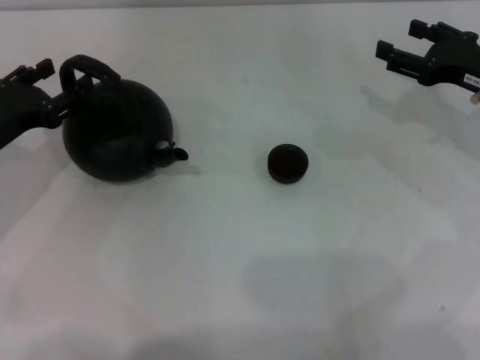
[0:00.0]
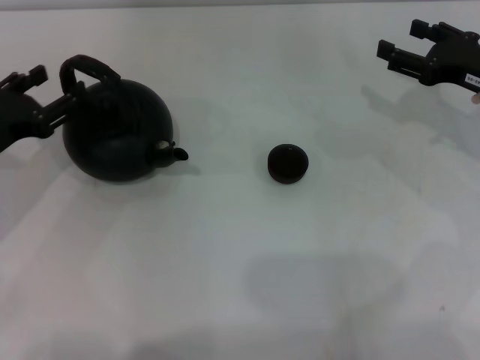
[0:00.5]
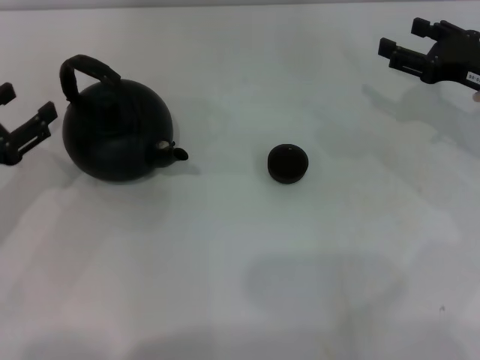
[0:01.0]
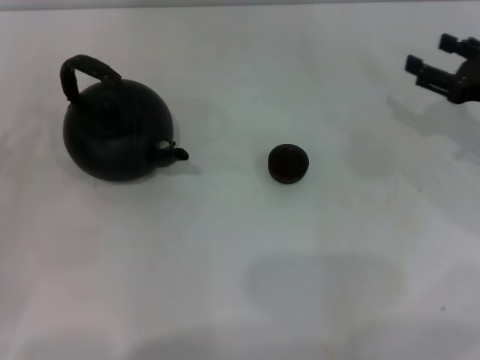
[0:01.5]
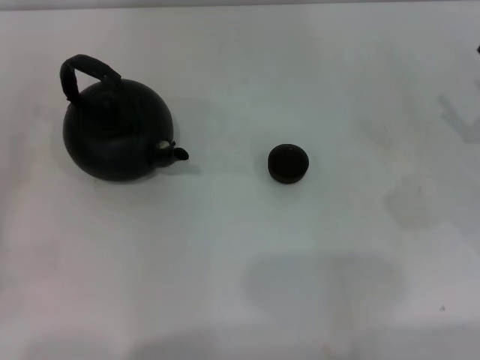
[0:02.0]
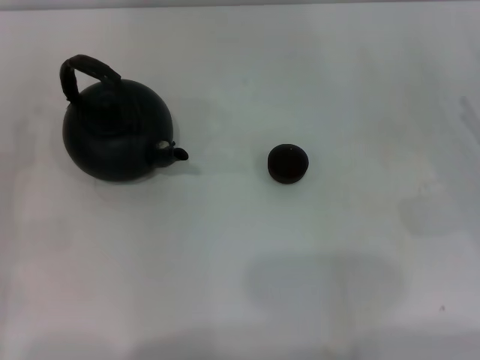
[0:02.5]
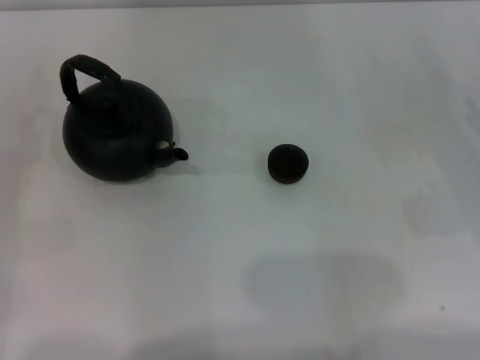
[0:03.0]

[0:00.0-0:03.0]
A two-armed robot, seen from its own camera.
Task of the whole recording: Grasp the handle of the teapot with one hand and pour tea into the teacup.
0:00.0 to 0:01.5: The left gripper shifts some 10 cm backward and to the left.
0:01.5 to 0:03.0: The right gripper is displaced backward by approximately 5 cm.
